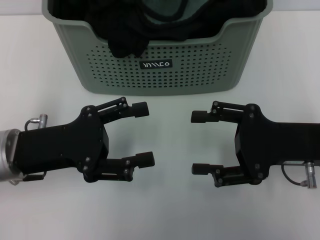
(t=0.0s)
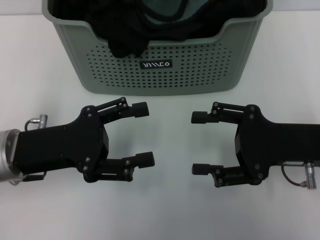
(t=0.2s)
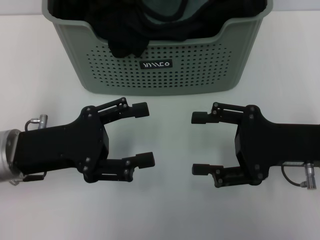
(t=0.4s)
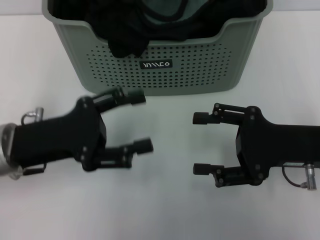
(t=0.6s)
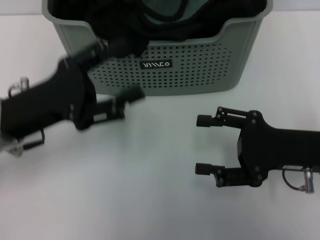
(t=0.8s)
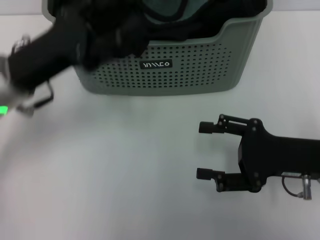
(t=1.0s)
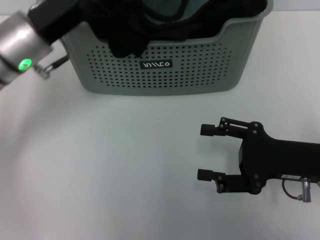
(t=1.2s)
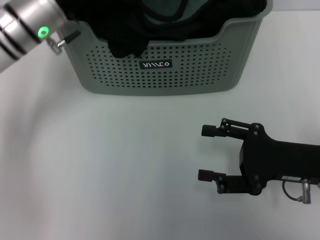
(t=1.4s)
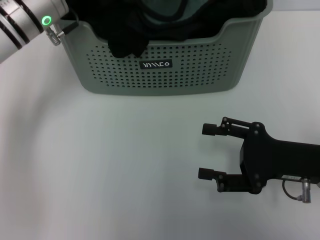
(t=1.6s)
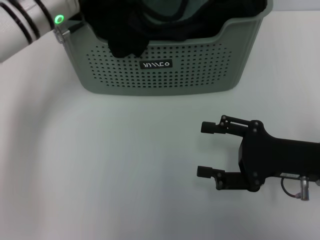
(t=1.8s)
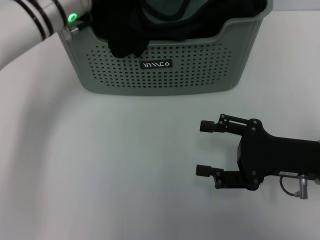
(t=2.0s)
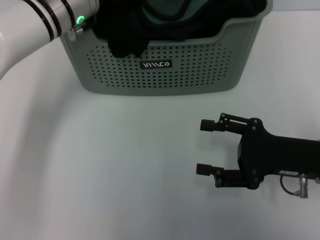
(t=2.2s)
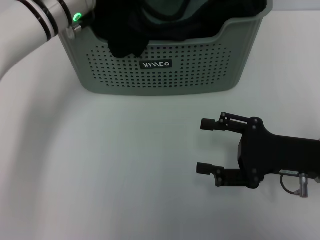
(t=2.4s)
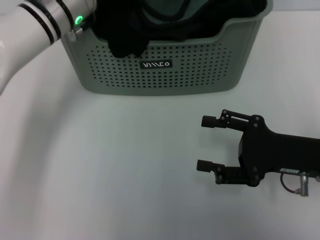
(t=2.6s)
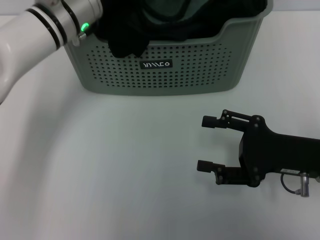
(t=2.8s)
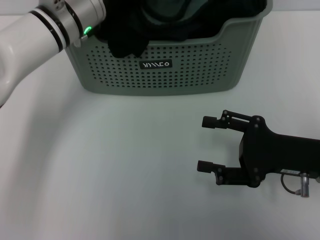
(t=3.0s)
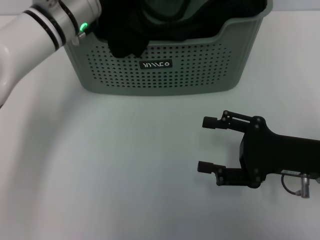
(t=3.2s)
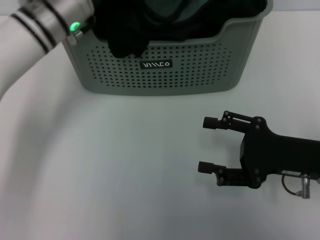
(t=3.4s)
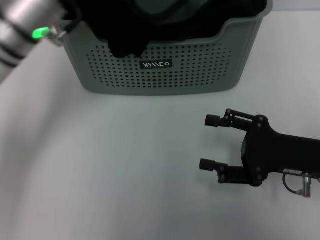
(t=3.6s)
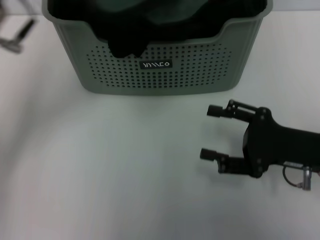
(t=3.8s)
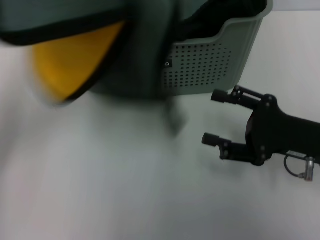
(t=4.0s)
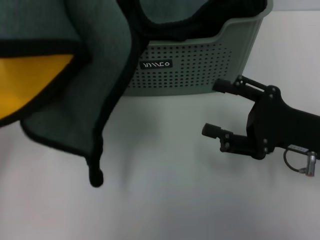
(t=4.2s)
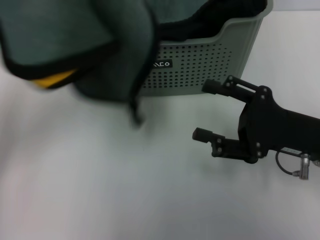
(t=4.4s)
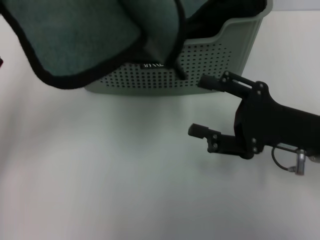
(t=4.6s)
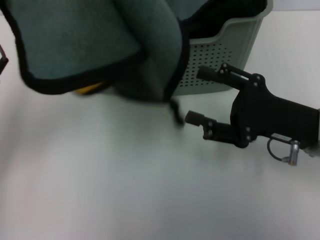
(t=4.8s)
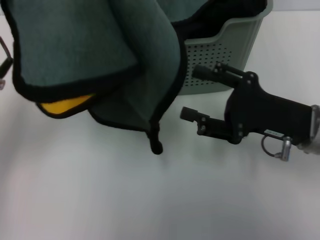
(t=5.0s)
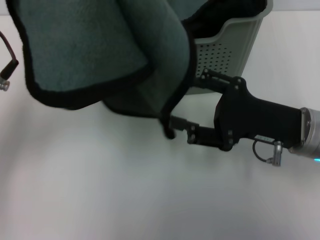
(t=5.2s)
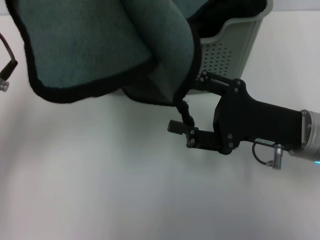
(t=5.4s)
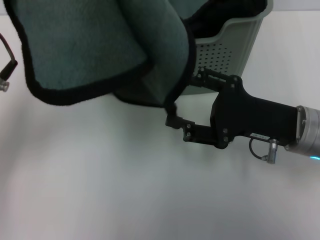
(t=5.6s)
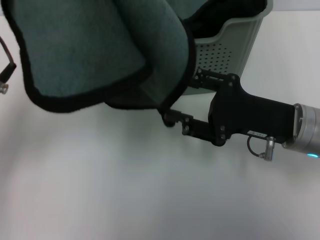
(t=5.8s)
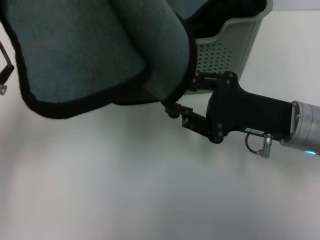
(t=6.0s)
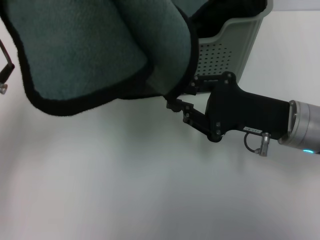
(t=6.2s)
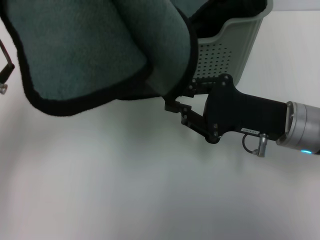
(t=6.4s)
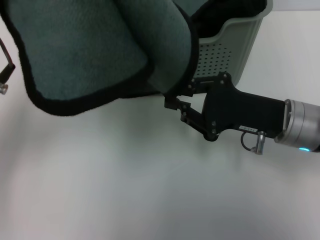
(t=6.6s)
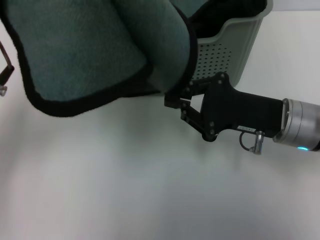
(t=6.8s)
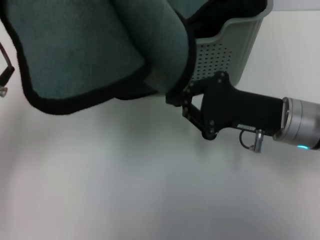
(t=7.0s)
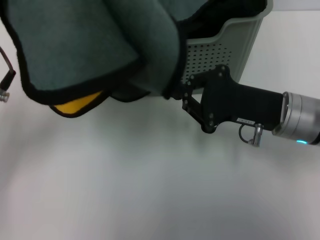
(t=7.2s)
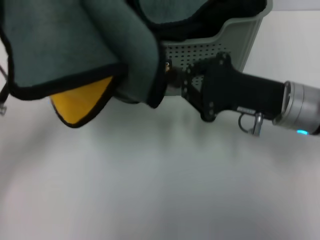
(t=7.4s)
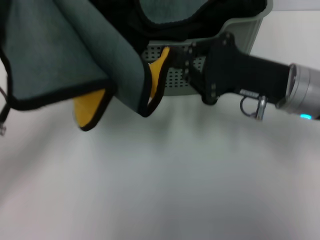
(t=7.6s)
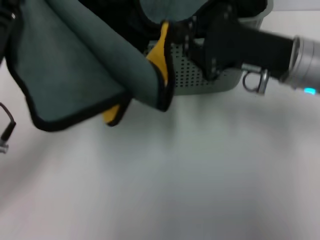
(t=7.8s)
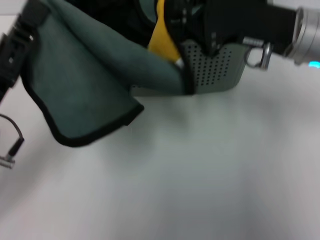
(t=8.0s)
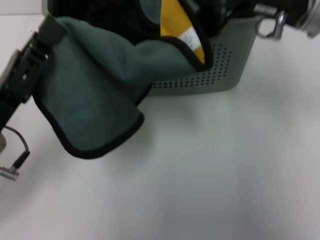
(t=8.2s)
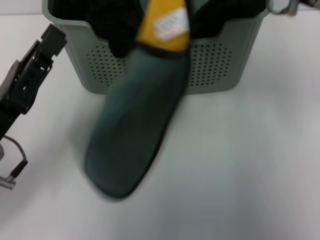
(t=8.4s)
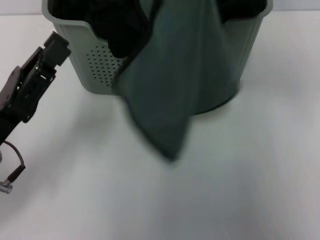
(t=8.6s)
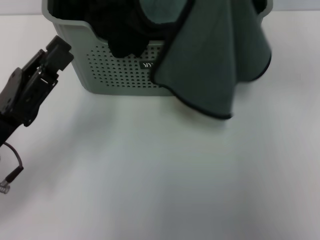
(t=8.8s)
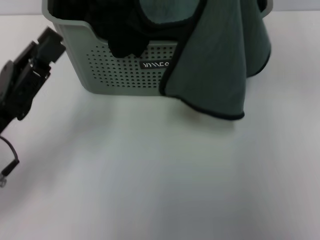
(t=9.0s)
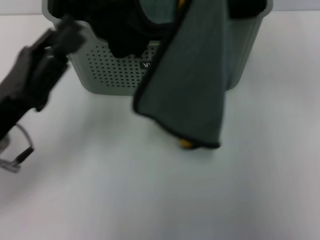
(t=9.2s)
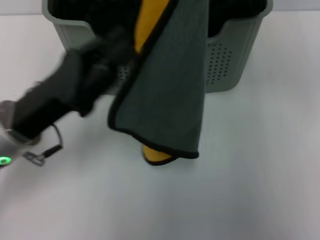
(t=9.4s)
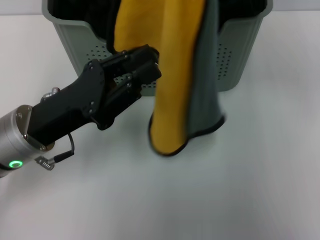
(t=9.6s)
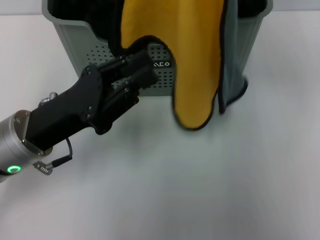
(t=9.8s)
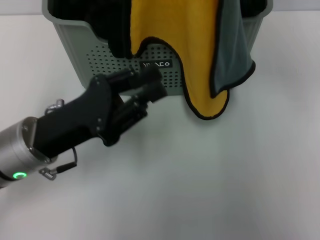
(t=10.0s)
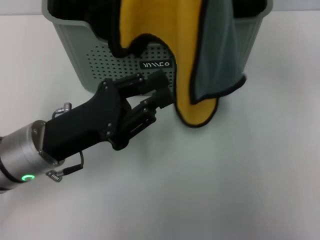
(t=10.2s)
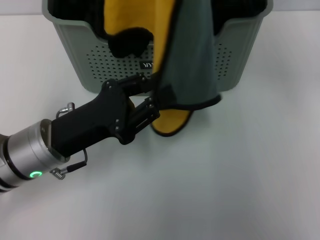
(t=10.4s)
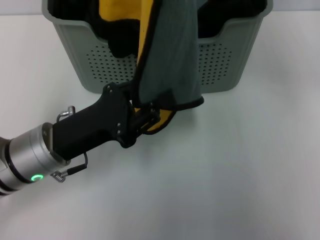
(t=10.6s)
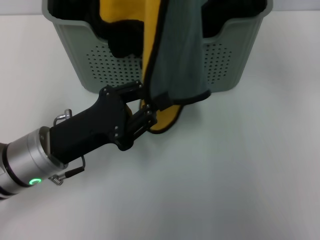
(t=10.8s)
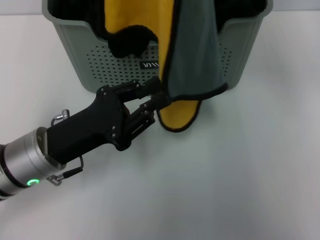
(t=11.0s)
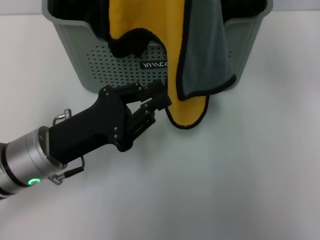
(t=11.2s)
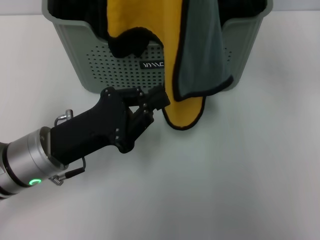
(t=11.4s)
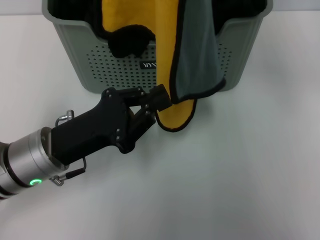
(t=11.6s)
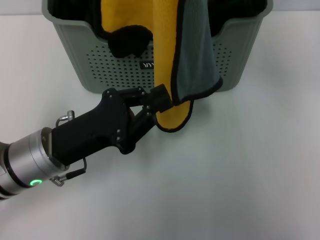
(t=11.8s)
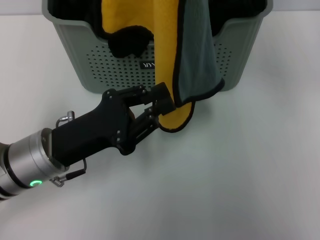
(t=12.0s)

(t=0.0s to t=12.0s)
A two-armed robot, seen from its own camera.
Task of the whole recording: pick up the towel from the storage box and lay it flat on the table.
Step, t=0.0s - t=3.2s: Pick up a towel with the left gripper.
Step, t=3.4s - t=7.0s: Spread the towel flat with the left gripper.
t=0.0s - t=1.6s: The left gripper travels forward by approximately 15 cm.
t=1.6s - t=3.0s: The left gripper closes its fingers.
t=3.0s - t=4.4s: The left gripper moves backward and to the left, about 15 cm.
t=6.0s - t=7.6s: The left gripper travels downward by approximately 5 cm, while the right gripper closes.
t=7.6s - t=9.0s: The left gripper ends up about 5 cm from where it was. The right gripper travels upward by roughly 15 cm.
t=9.0s - t=10.4s: The right gripper moves about 5 cm. Meanwhile the left gripper travels to the right by approximately 5 cm.
t=10.4s - t=12.0s: Both grippers stay about where they are.

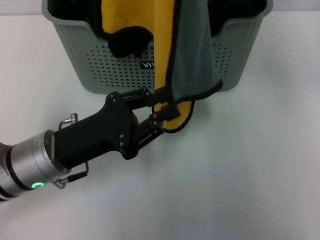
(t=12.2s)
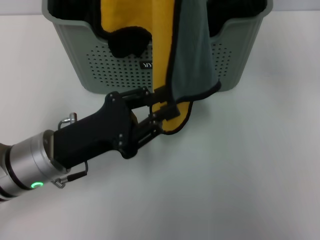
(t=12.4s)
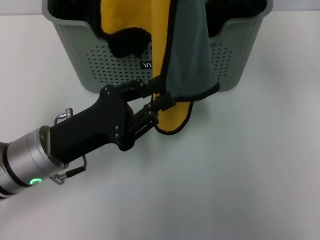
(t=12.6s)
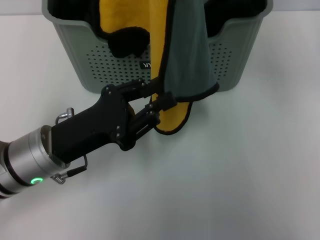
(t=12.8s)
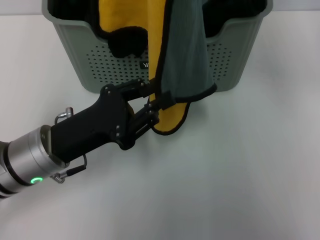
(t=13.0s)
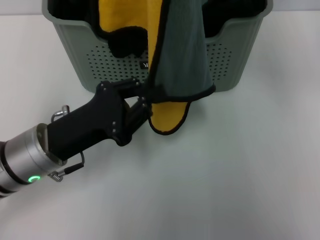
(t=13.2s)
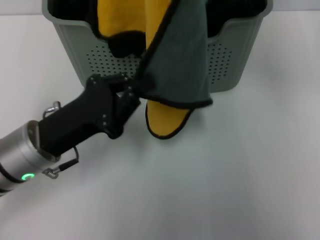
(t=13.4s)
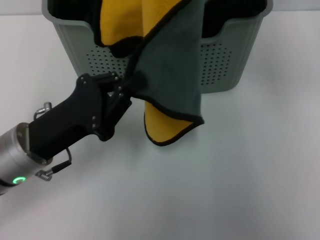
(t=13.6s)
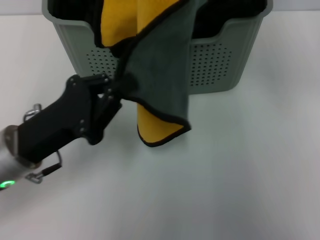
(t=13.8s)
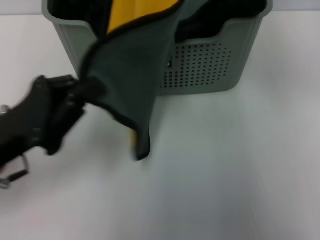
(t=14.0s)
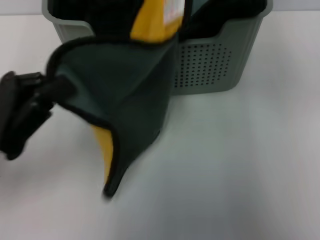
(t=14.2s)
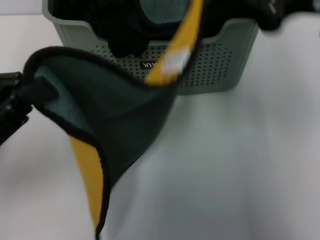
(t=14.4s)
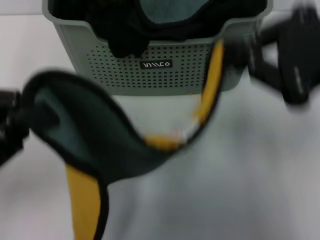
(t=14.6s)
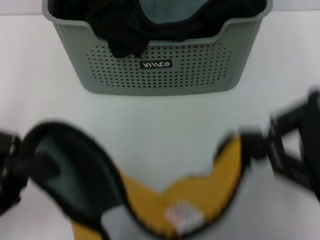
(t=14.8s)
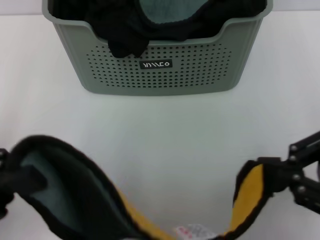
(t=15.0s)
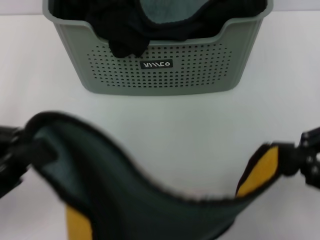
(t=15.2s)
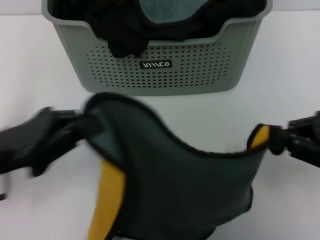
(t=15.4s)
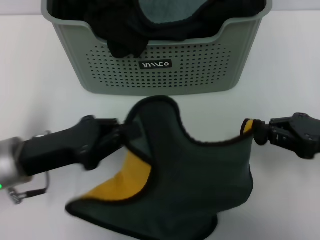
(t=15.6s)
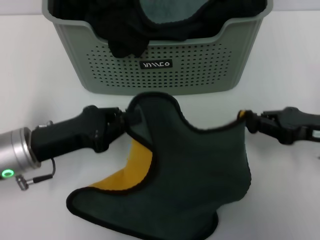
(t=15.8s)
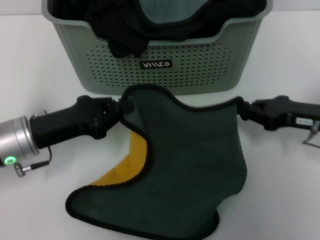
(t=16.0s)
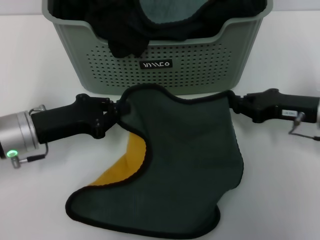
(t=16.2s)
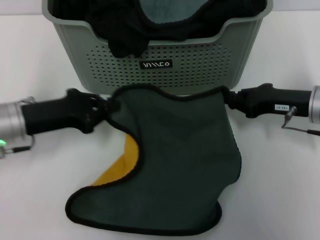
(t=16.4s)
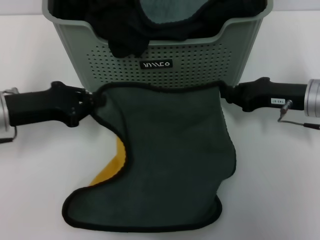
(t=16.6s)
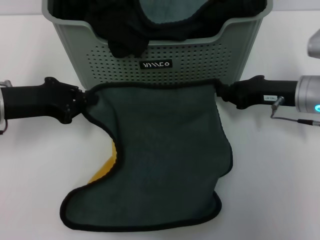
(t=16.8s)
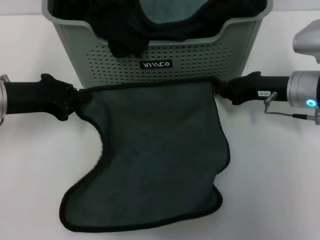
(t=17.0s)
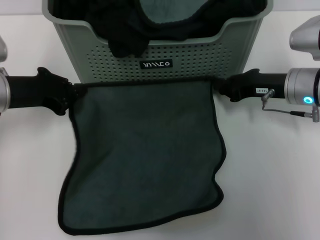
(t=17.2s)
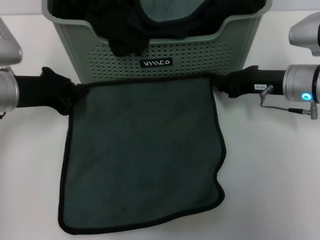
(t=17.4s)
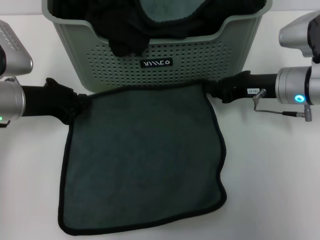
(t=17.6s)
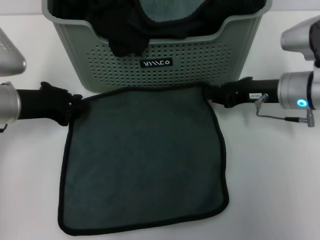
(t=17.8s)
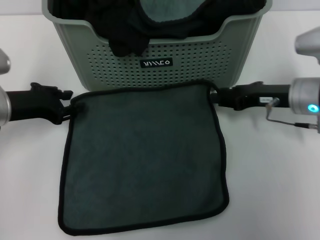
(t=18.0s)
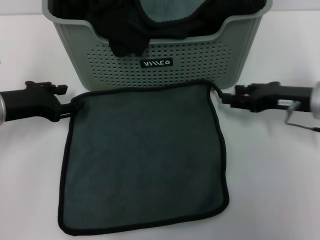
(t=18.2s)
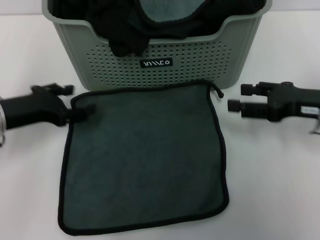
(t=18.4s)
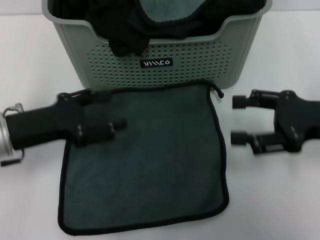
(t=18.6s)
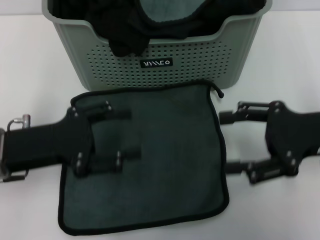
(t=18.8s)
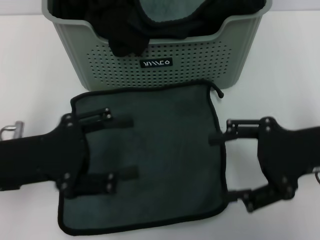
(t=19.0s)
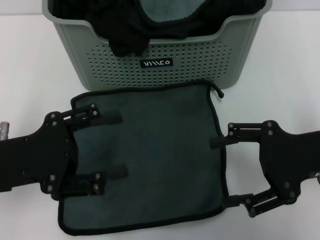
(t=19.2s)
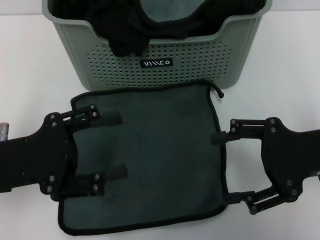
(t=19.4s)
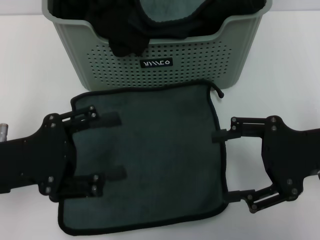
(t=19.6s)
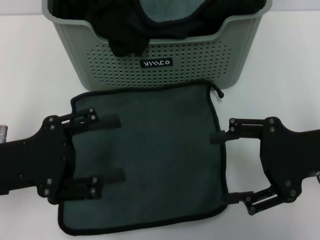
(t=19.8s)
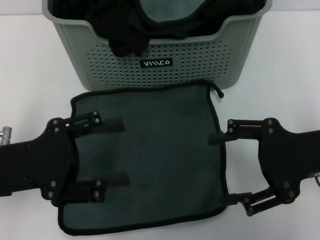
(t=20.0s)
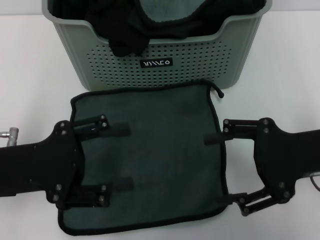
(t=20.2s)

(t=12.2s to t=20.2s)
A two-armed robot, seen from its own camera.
Task of the whole recording: pick up the towel from the storage box and lay it flat on the table.
Step, t=12.2s - t=17.8s: Spread the towel flat with the right gripper.
t=13.8s - t=15.4s: The left gripper goes upward and returns, about 10 cm each way, while the right gripper heads downward, backward and to the right, covering some 25 cm.
t=15.4s - t=17.0s: The right gripper is displaced forward, downward and to the left by roughly 20 cm. The left gripper moves forward, about 10 cm.
t=17.0s - t=18.6s: The right gripper moves backward, upward and to the right, approximately 10 cm, and opens up. Meanwhile the left gripper moves backward, roughly 5 cm, and opens up.
t=18.6s - t=20.2s: The left gripper changes place by some 5 cm.
